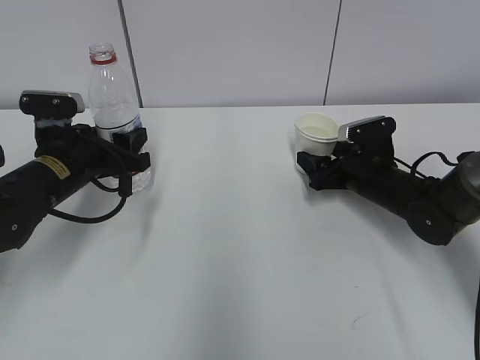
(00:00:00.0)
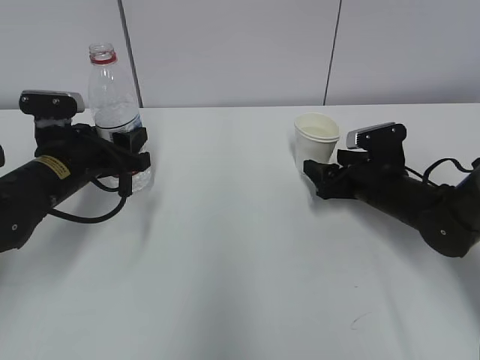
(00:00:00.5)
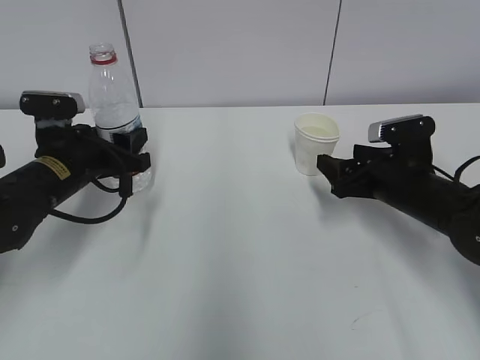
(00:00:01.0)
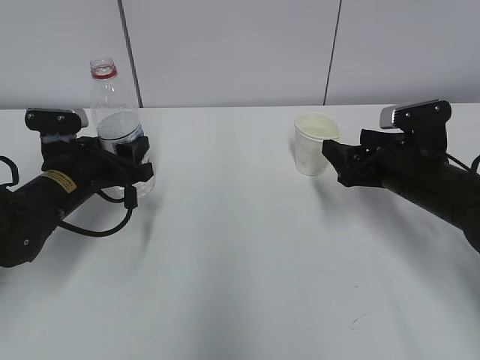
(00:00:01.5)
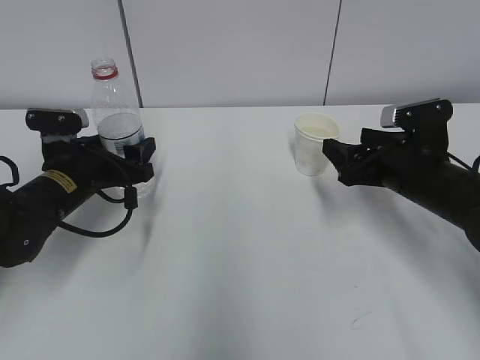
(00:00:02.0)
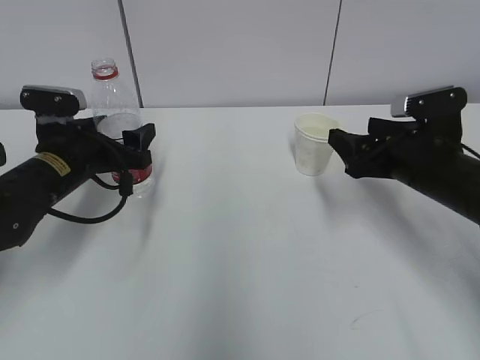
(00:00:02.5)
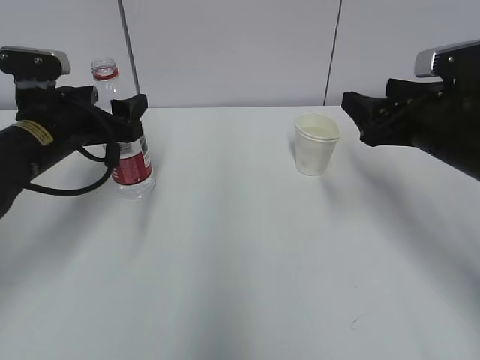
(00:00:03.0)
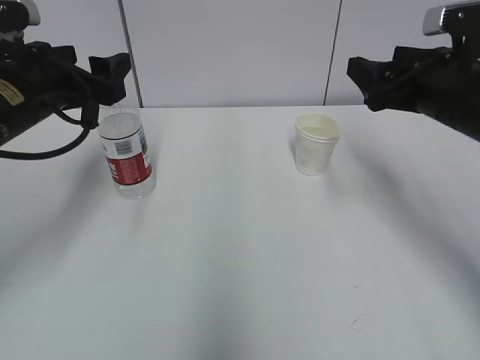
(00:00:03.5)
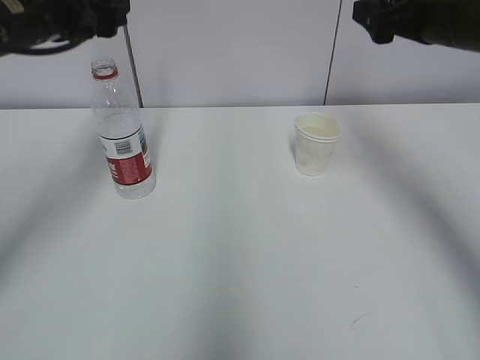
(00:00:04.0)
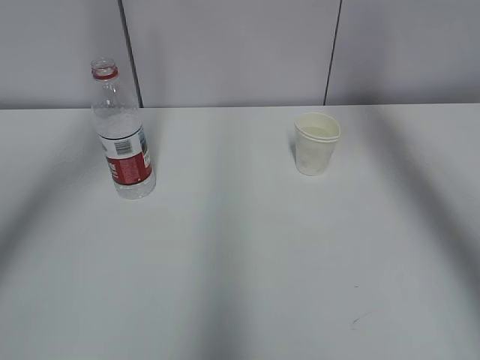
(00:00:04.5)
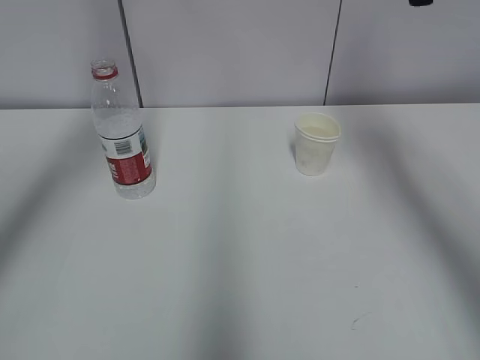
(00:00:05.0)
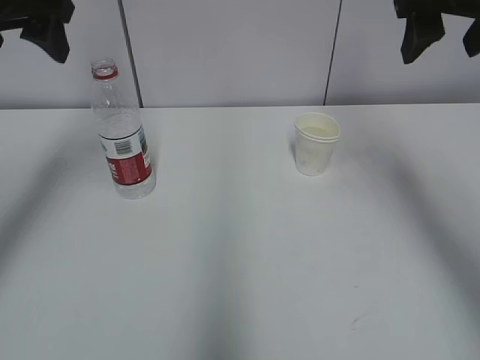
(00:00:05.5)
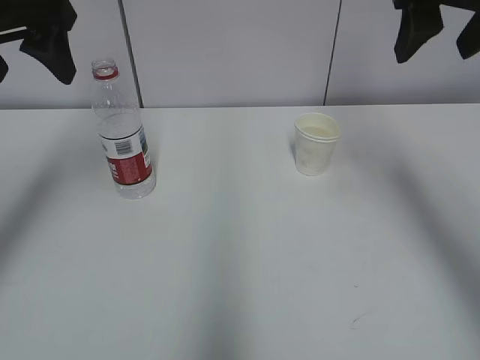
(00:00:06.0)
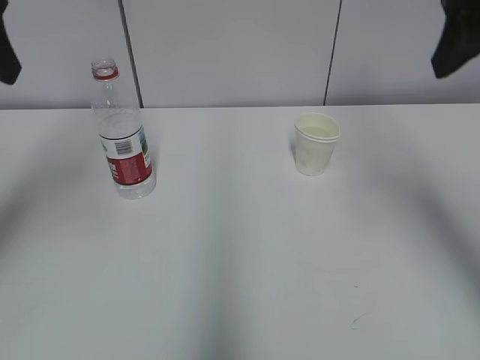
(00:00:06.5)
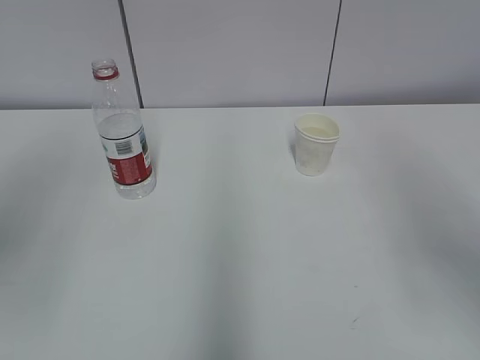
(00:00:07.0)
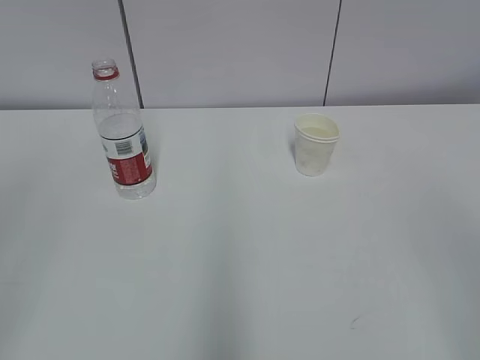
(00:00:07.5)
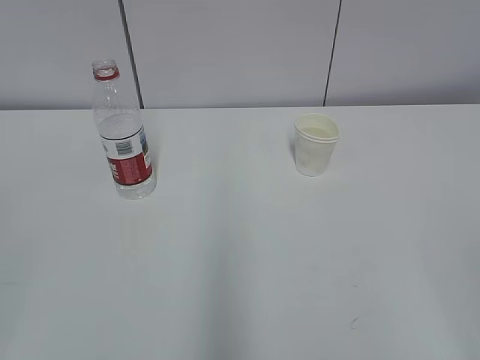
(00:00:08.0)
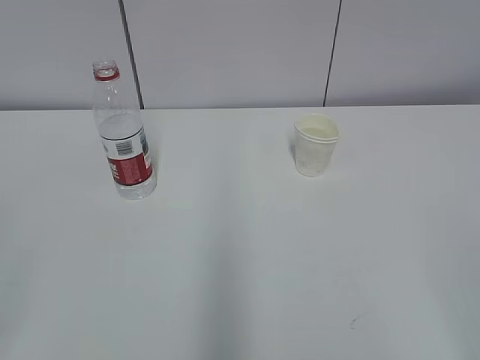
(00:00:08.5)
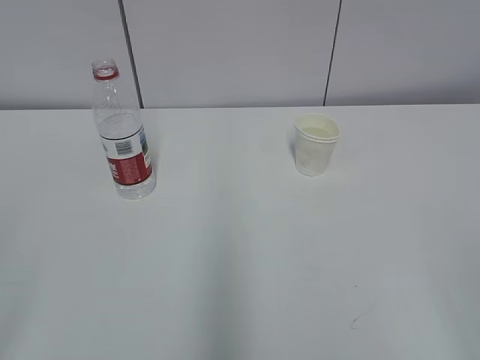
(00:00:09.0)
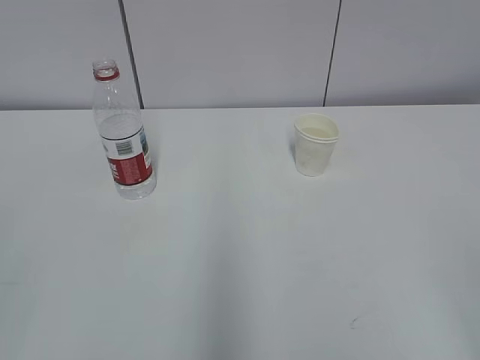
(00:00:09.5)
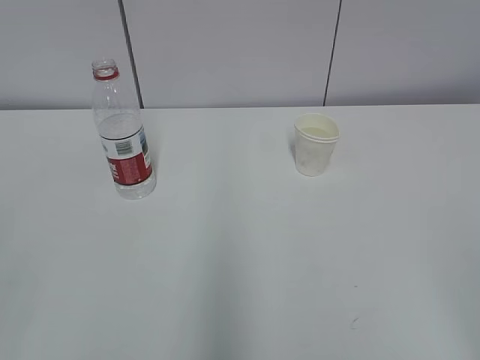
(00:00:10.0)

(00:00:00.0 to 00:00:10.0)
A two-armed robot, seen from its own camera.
00:00:00.0 - 00:00:02.0: The left gripper opens up; the right gripper shifts about 10 cm backward and upward.
00:00:02.0 - 00:00:04.0: The grippers both shift upward by some 20 cm.
00:00:04.0 - 00:00:06.0: The two grippers go roughly 10 cm upward.
00:00:06.0 - 00:00:08.0: The two grippers go approximately 35 cm backward.

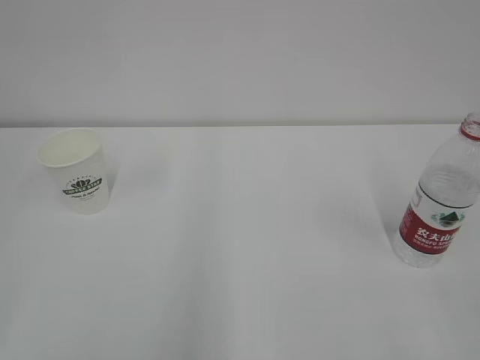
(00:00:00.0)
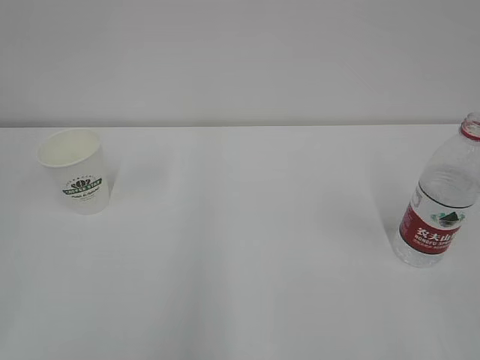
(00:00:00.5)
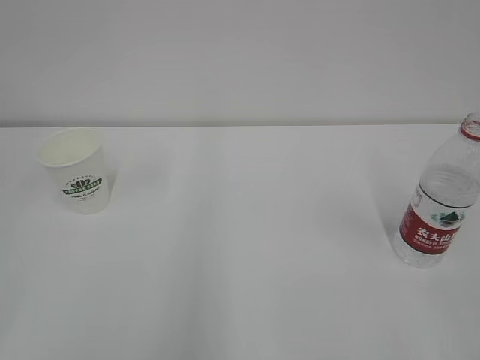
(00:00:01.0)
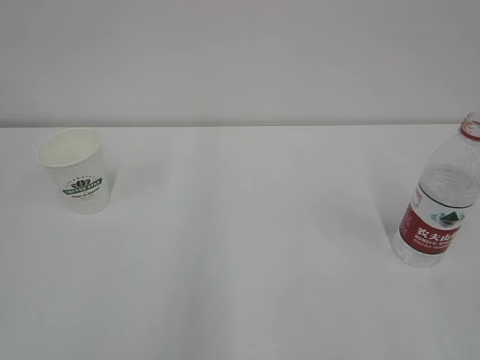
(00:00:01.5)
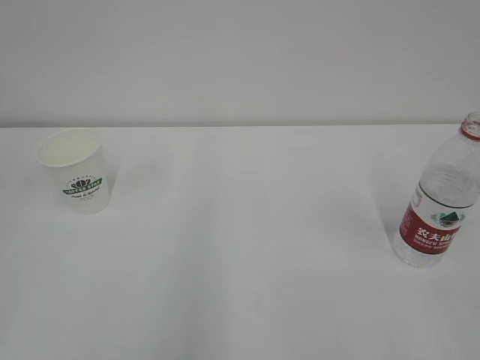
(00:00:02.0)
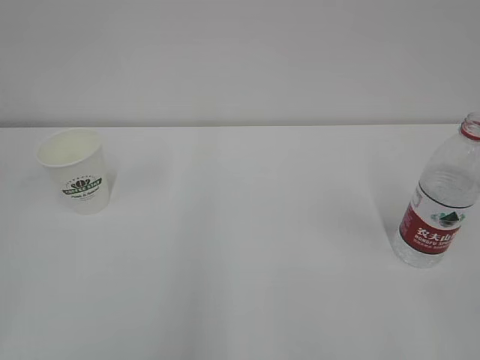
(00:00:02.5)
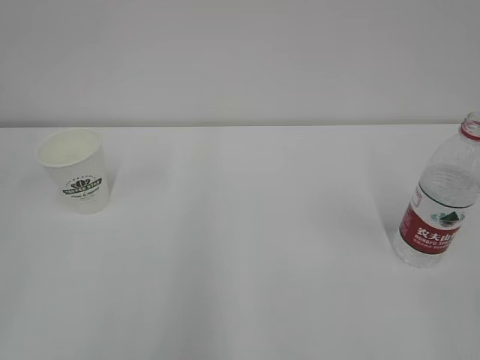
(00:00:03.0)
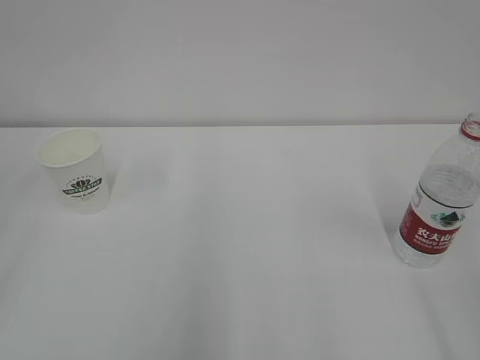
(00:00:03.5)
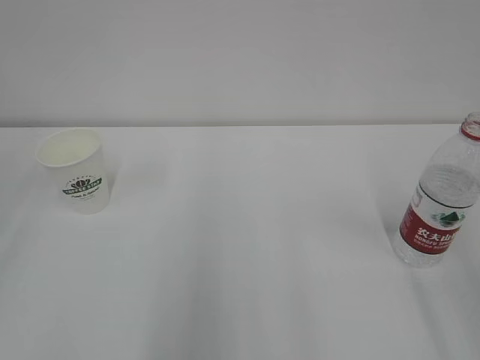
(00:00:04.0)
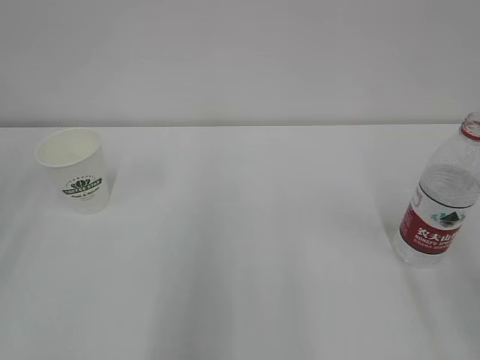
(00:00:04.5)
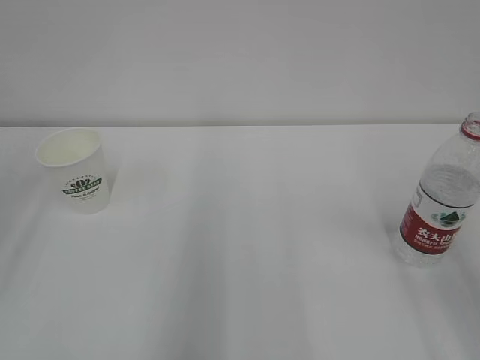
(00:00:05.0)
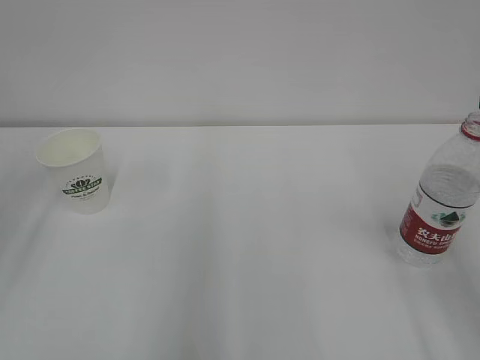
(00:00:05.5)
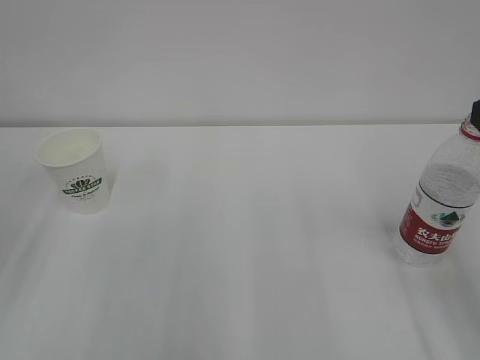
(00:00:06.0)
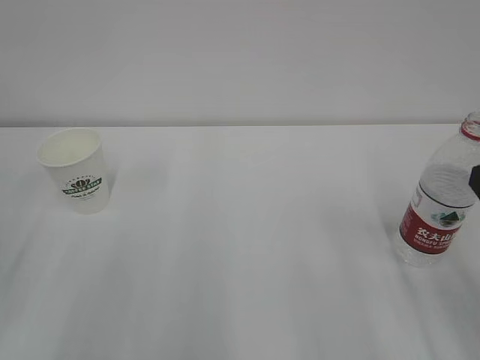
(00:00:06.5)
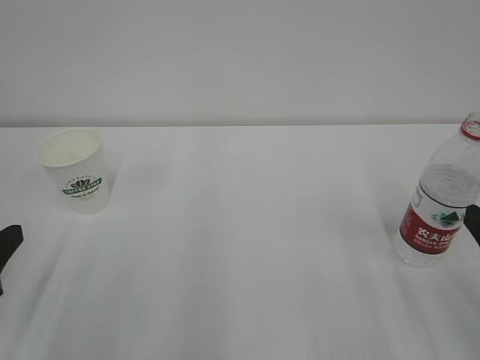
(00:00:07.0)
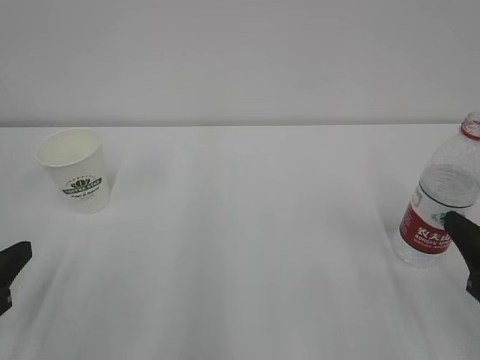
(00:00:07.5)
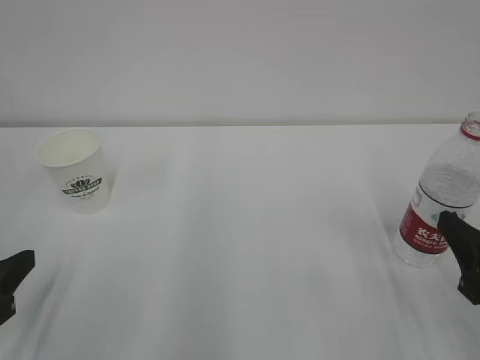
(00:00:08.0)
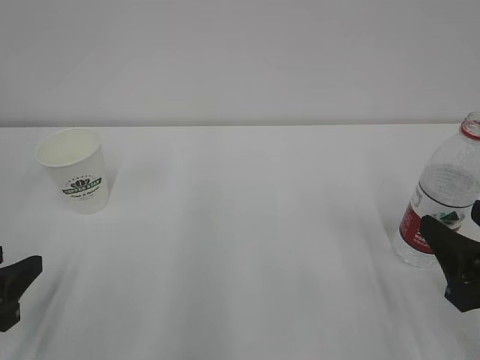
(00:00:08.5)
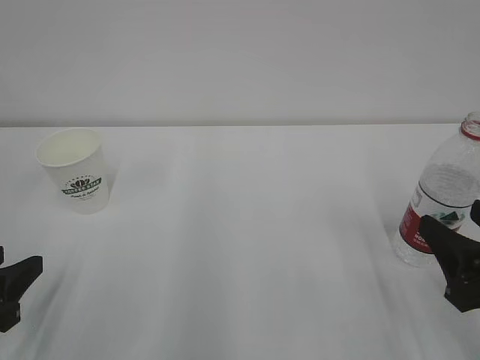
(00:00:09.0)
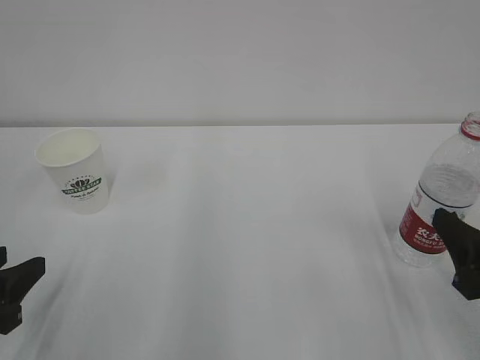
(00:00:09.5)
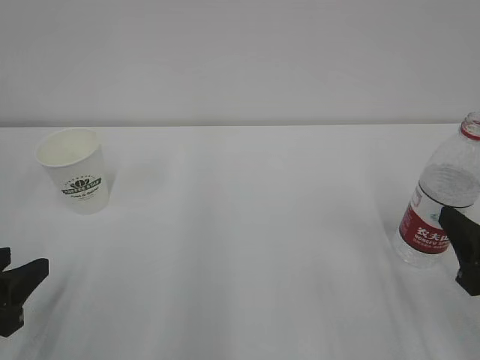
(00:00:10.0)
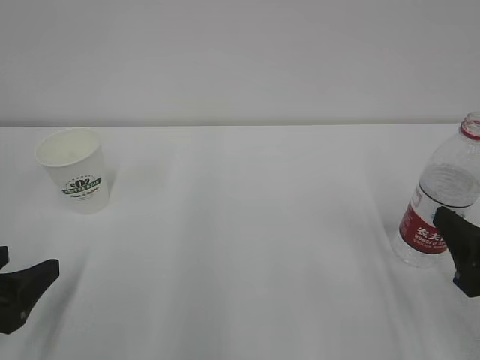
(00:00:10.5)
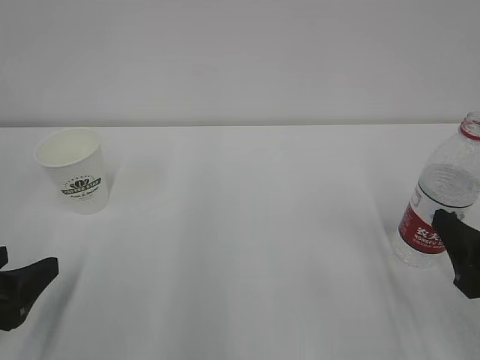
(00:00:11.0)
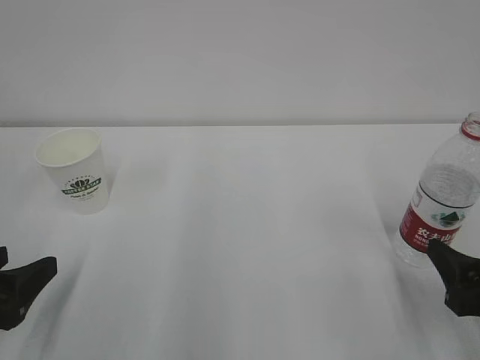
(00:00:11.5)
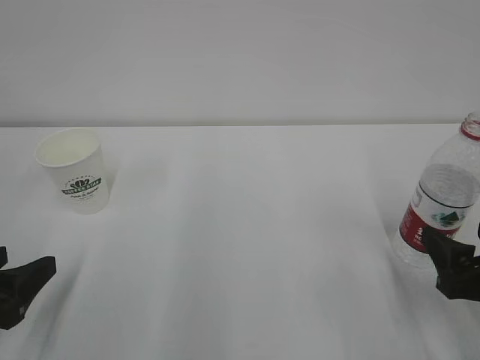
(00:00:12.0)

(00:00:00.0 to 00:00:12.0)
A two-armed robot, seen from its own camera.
00:00:06.0 - 00:00:08.0: The two grippers go about 10 cm downward. The left gripper closes.
00:00:08.0 - 00:00:10.0: The grippers move only a little.
00:00:10.0 - 00:00:12.0: The right gripper opens its fingers.

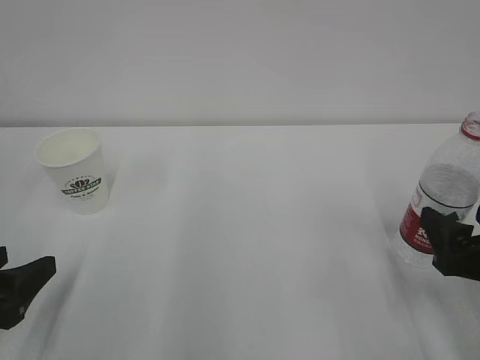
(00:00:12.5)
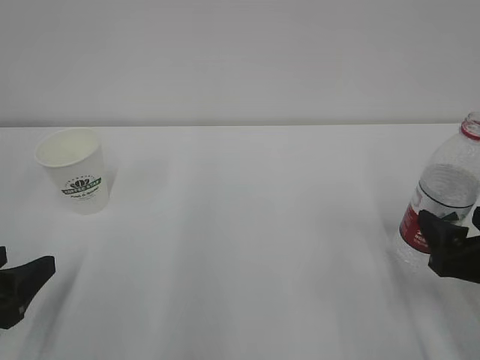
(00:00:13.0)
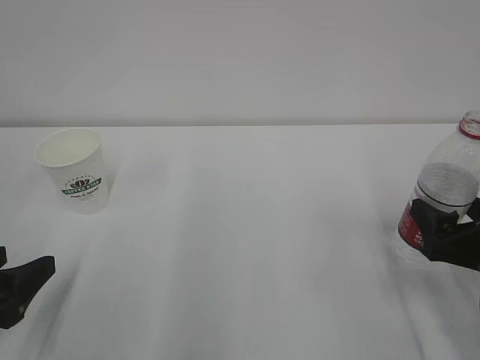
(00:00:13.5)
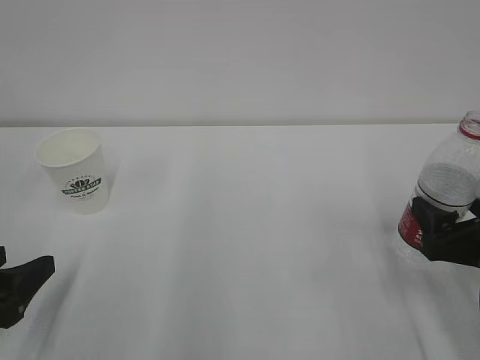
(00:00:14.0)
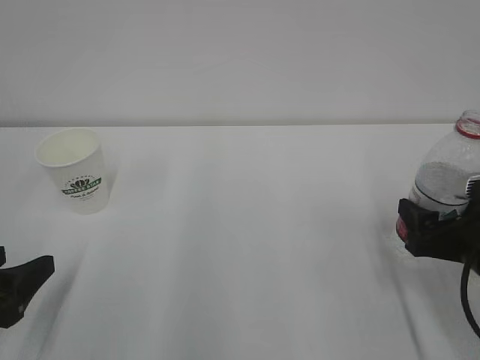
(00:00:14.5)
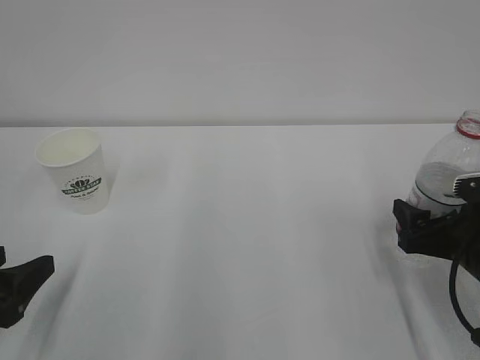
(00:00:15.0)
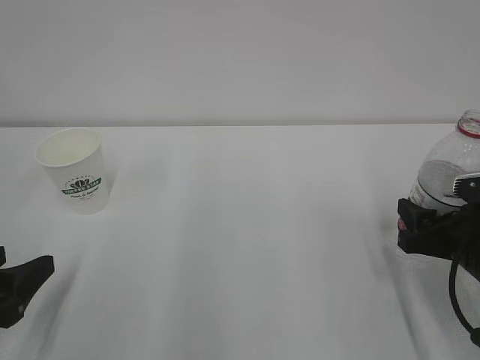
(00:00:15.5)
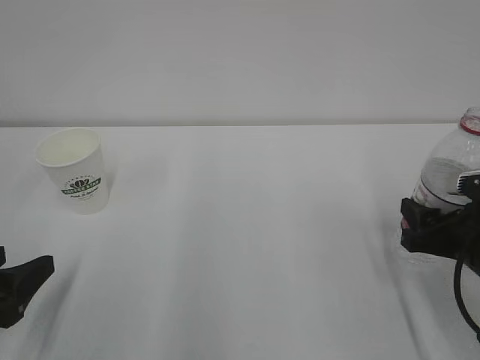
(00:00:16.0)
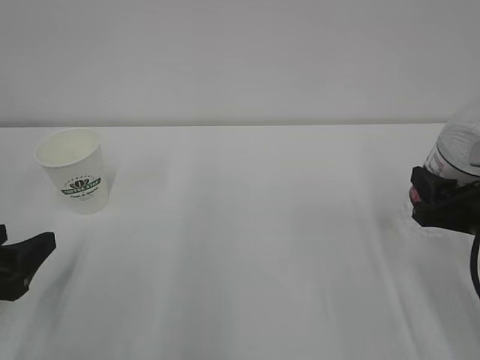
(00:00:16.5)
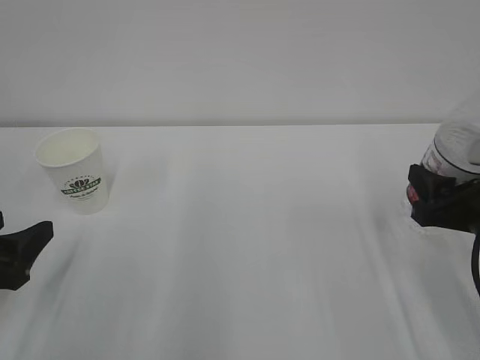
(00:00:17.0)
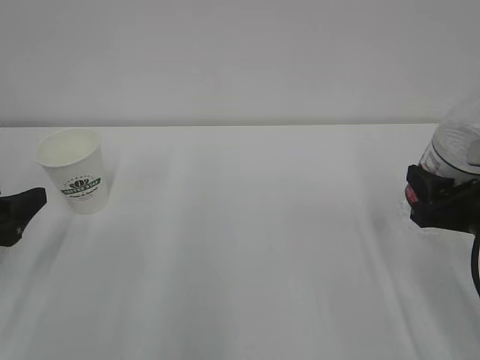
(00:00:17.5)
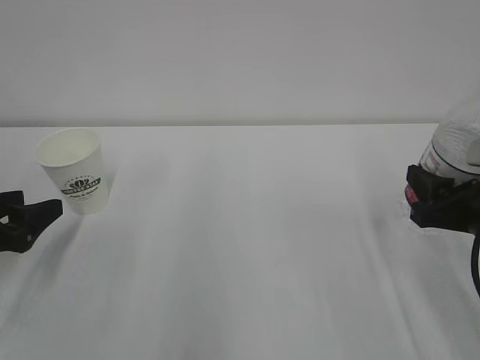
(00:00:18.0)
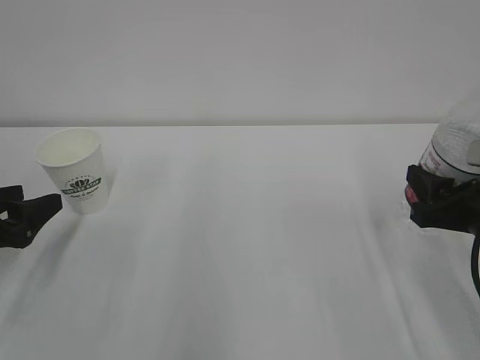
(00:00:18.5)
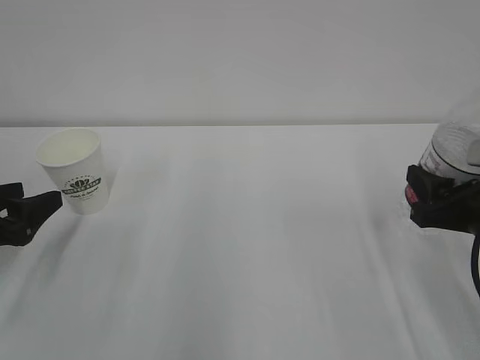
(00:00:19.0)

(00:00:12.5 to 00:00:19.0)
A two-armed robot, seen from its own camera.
00:00:12.5 - 00:00:14.5: There are only small adjustments of the grippers.
00:00:14.5 - 00:00:17.0: The right gripper closes.
00:00:17.0 - 00:00:19.0: The left gripper moves forward, about 5 cm.
